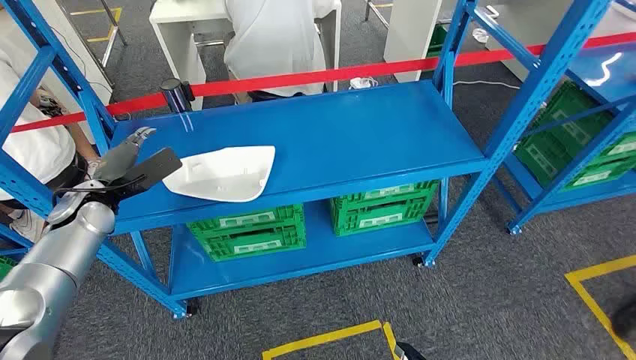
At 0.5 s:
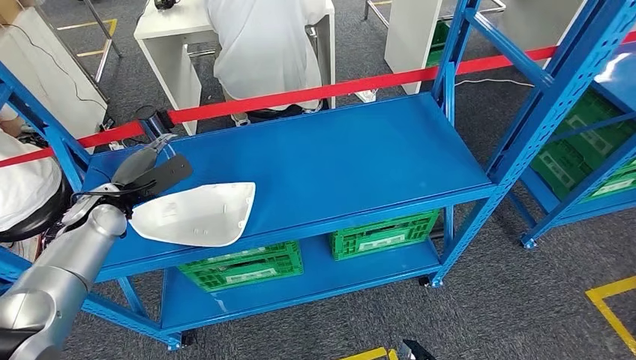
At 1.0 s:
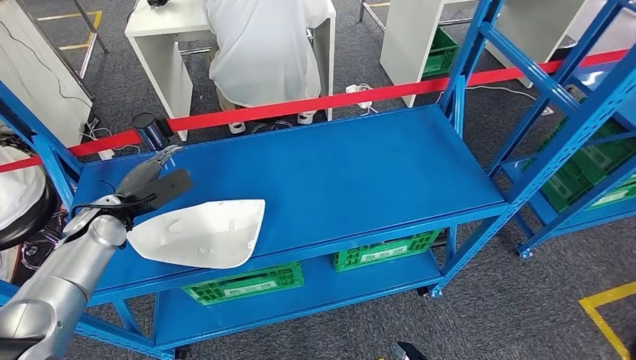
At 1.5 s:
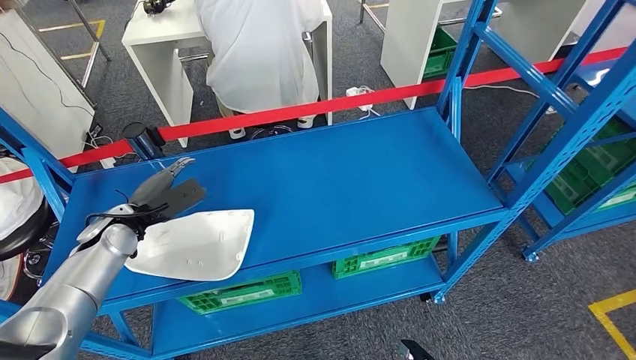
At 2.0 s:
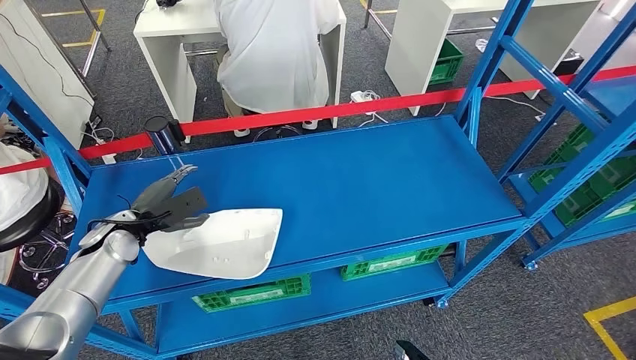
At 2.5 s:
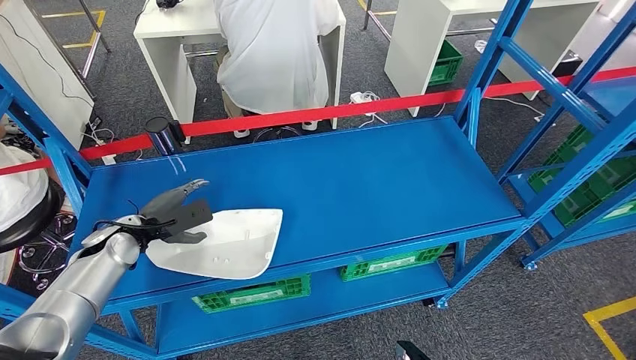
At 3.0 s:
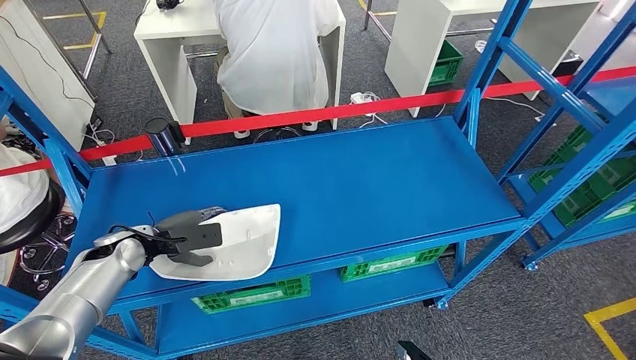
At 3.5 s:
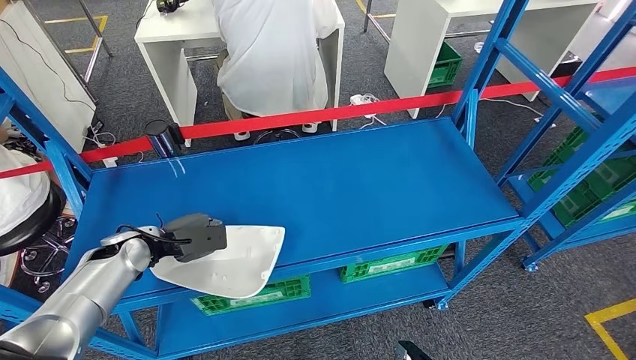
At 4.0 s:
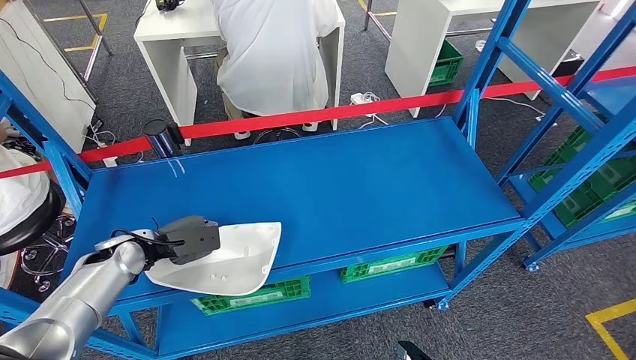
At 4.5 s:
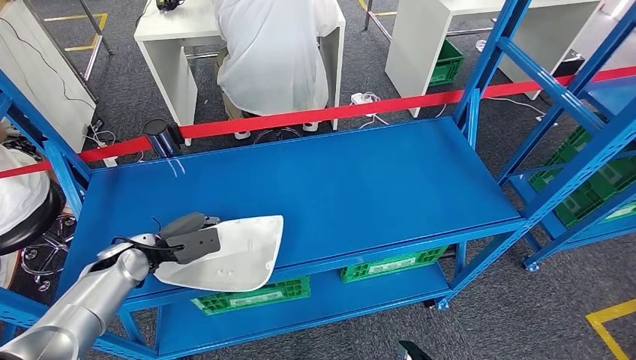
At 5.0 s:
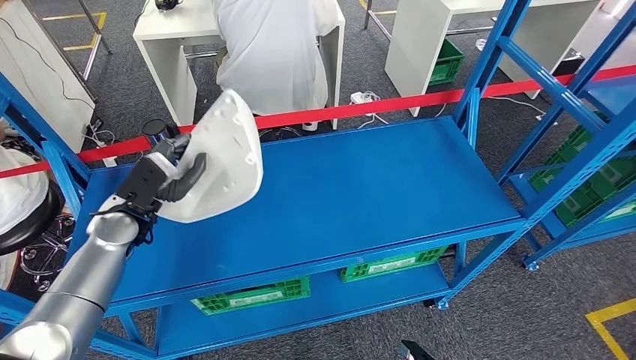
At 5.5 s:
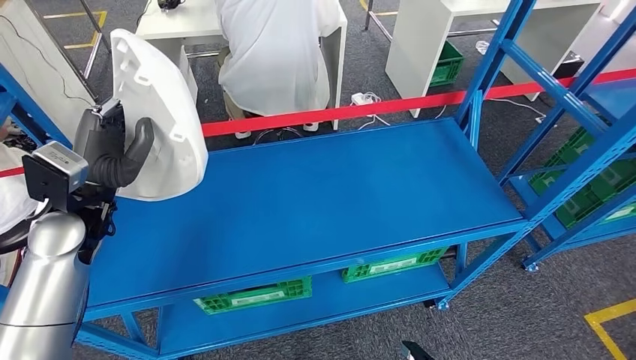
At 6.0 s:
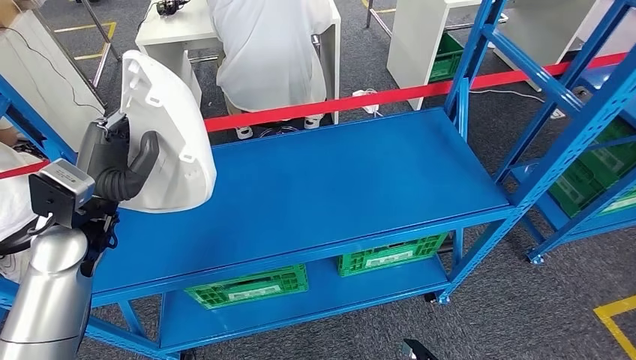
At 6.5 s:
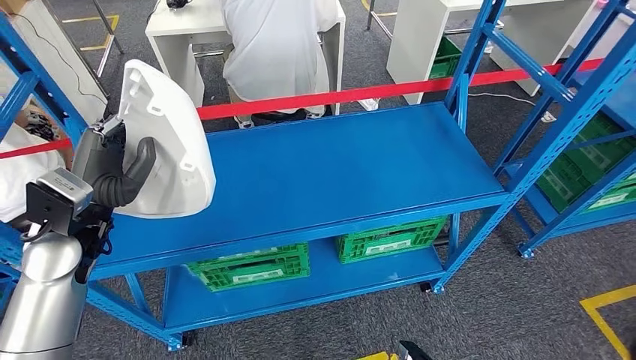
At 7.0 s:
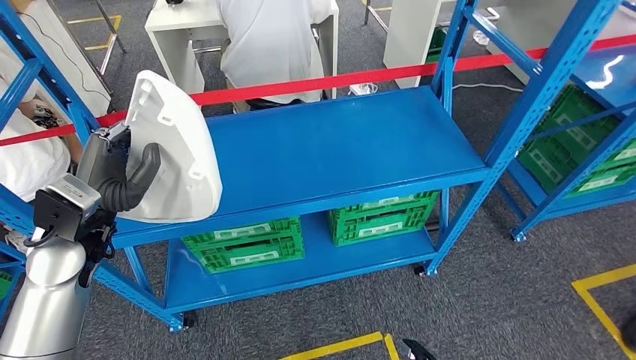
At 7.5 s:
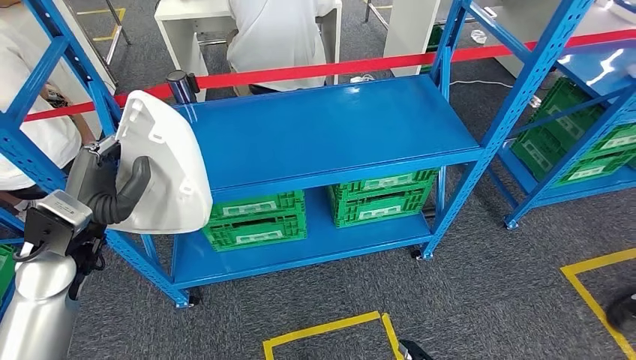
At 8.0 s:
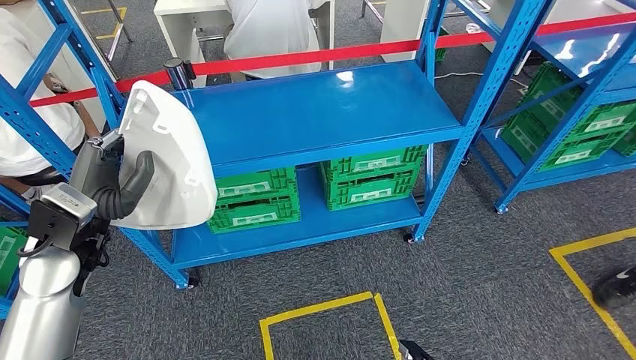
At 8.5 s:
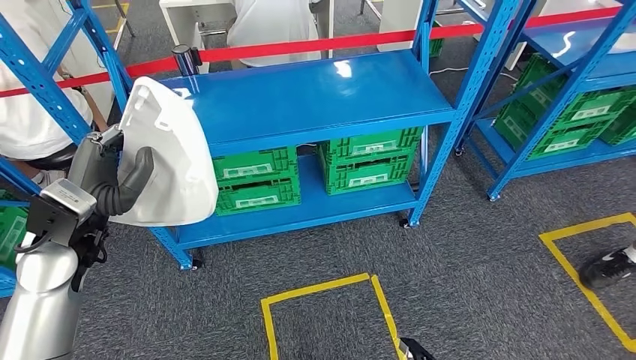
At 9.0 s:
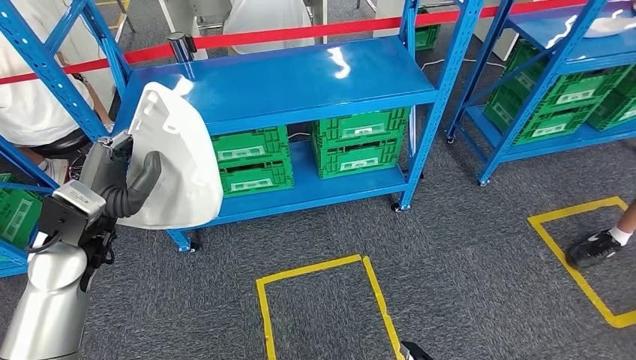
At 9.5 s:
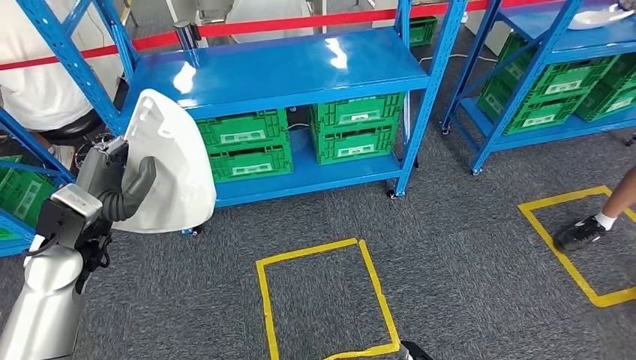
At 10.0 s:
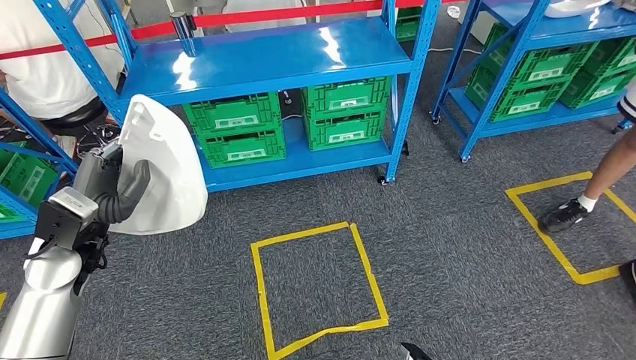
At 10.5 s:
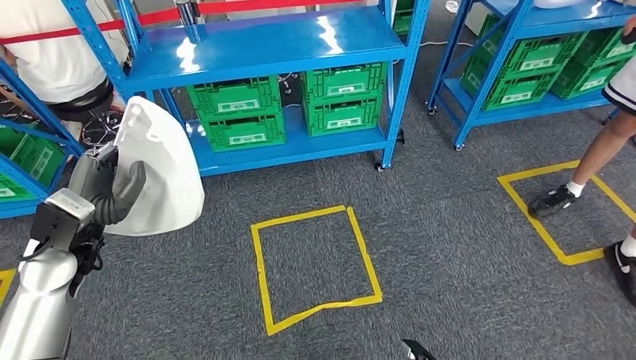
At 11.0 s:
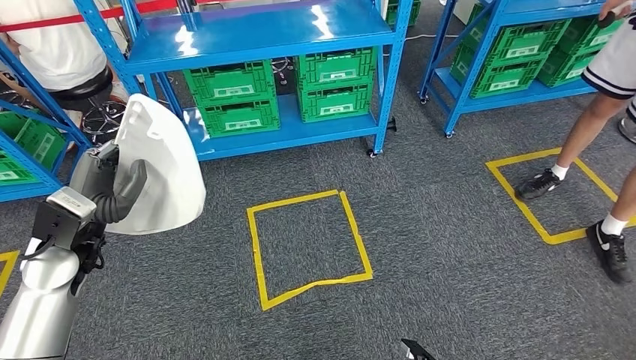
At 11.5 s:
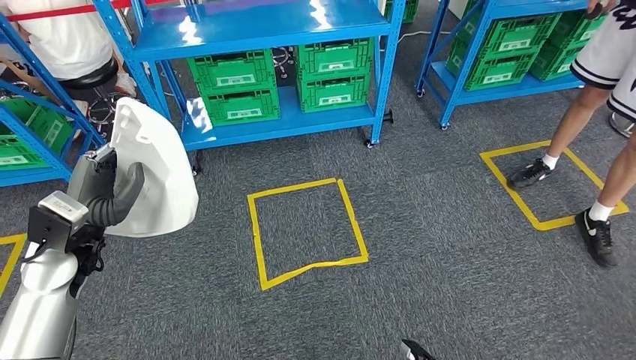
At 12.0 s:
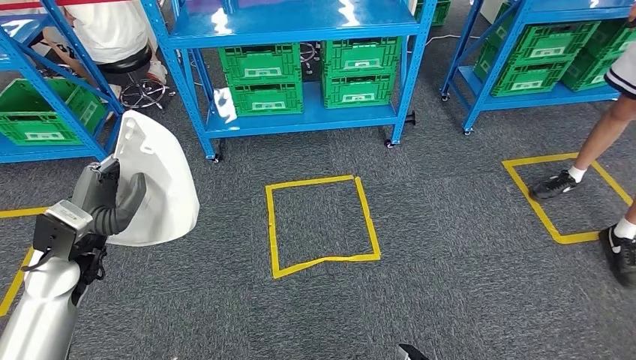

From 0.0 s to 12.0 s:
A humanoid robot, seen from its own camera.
Step, from 0.0 s to 7.0 s: Take small components from the rack.

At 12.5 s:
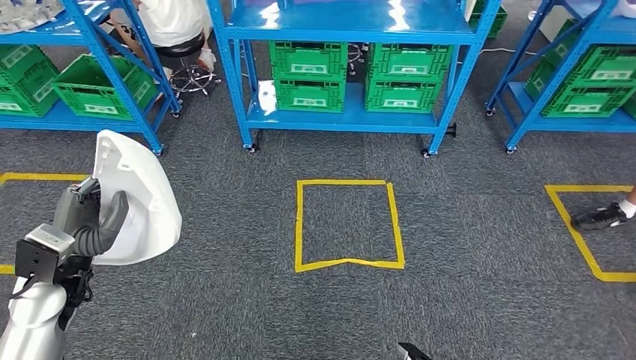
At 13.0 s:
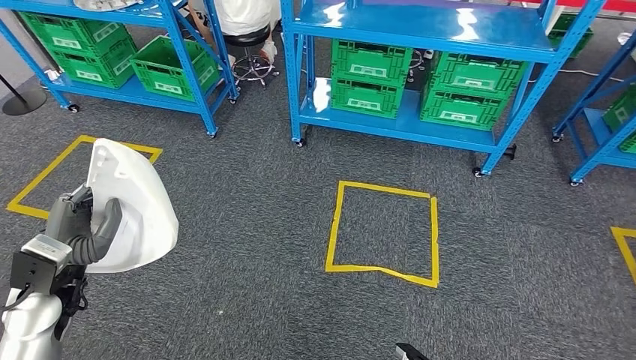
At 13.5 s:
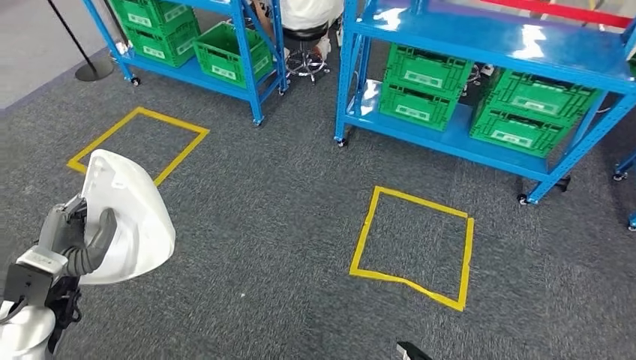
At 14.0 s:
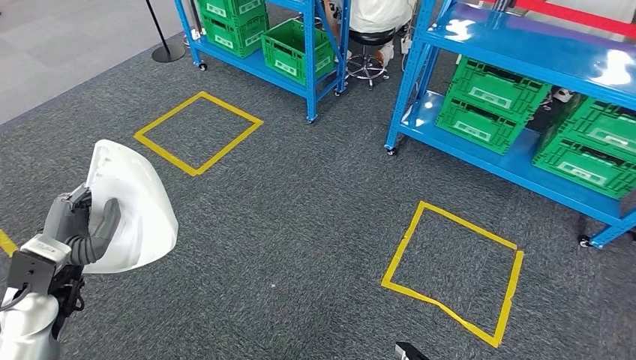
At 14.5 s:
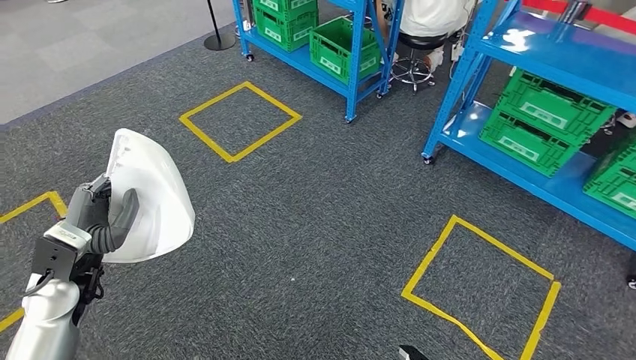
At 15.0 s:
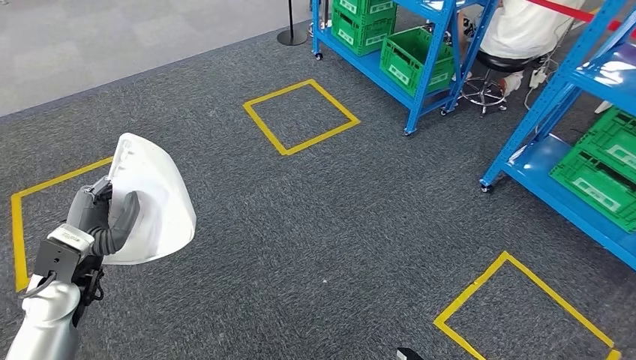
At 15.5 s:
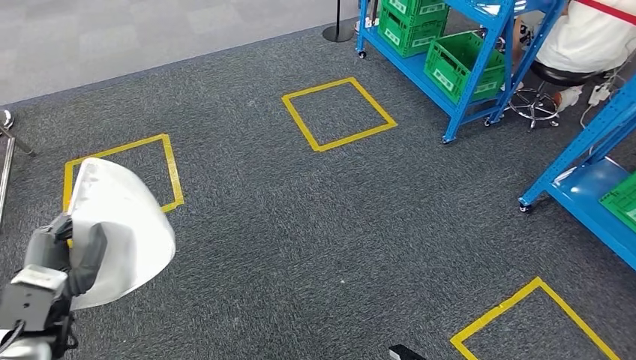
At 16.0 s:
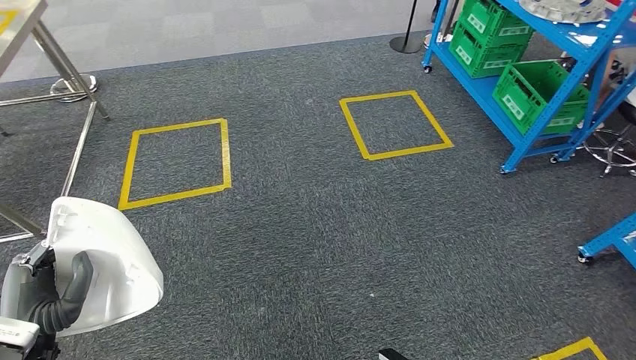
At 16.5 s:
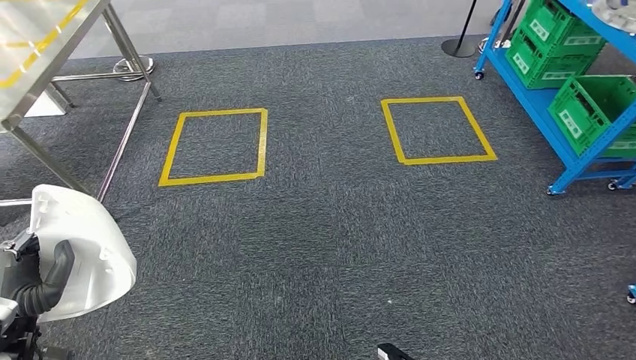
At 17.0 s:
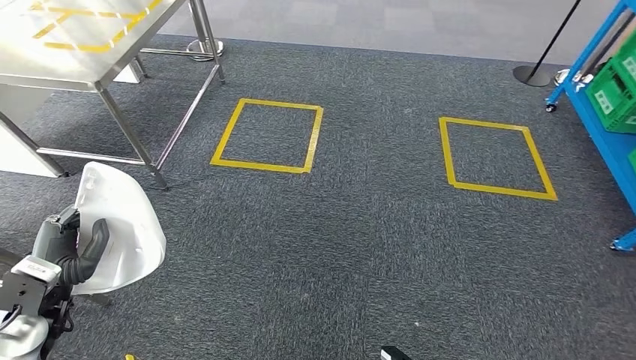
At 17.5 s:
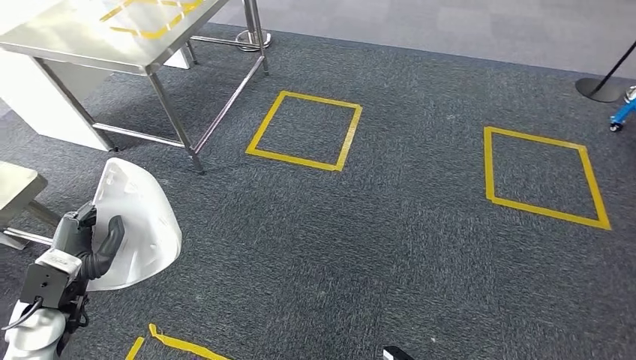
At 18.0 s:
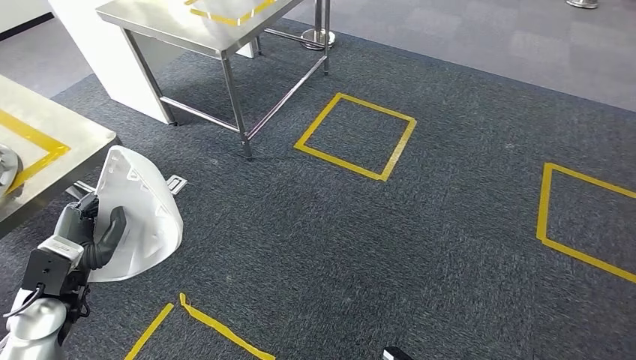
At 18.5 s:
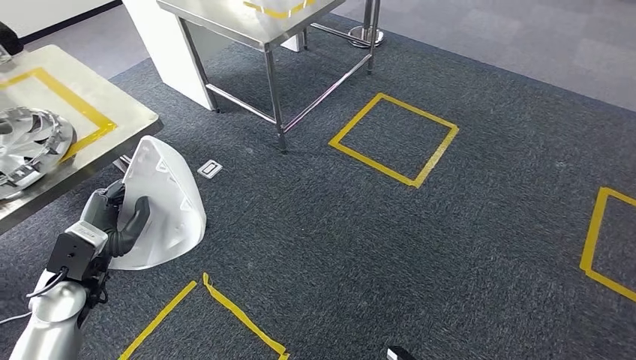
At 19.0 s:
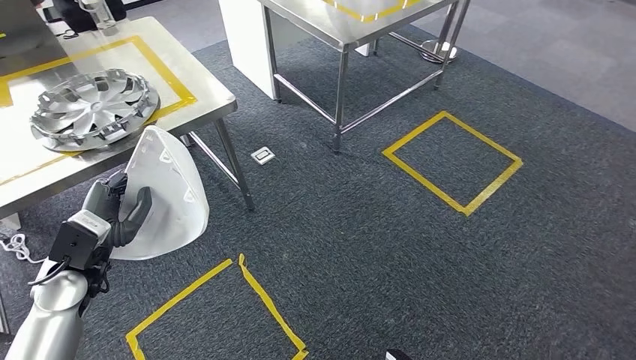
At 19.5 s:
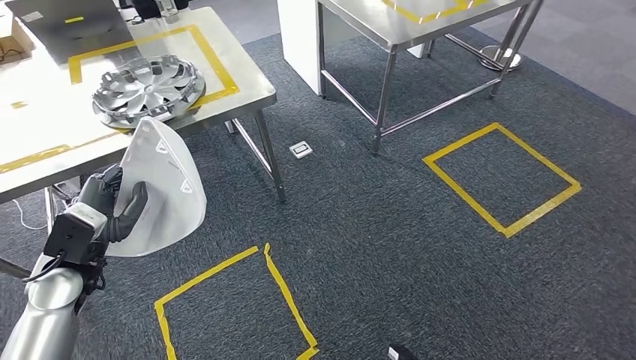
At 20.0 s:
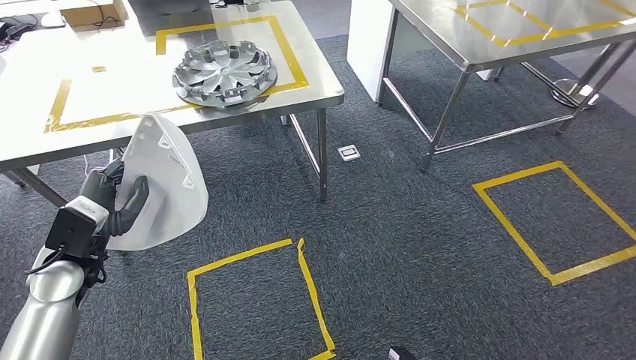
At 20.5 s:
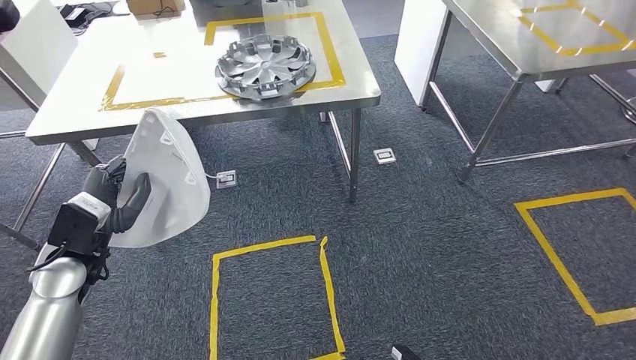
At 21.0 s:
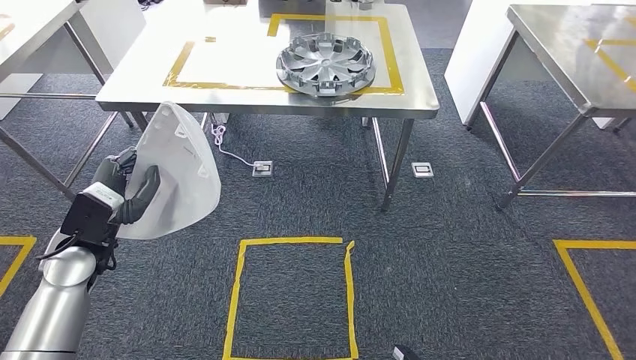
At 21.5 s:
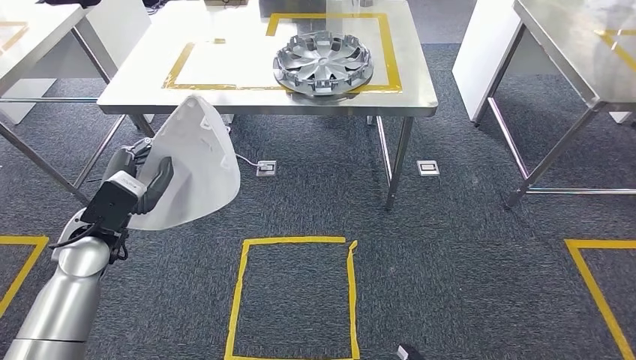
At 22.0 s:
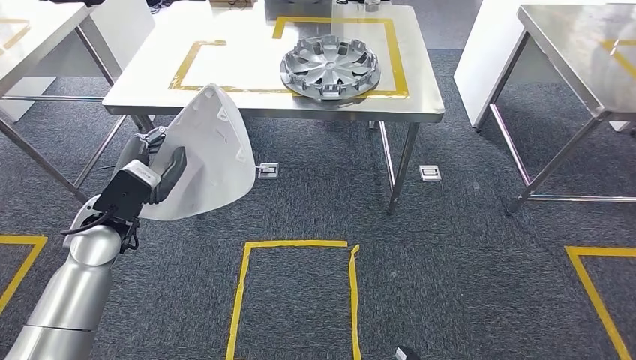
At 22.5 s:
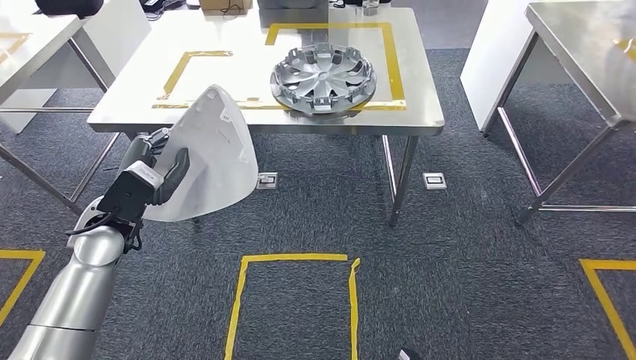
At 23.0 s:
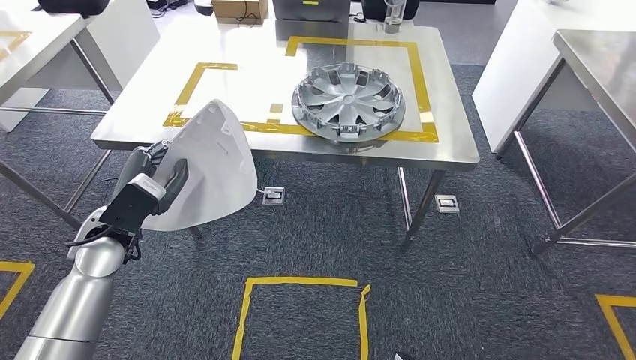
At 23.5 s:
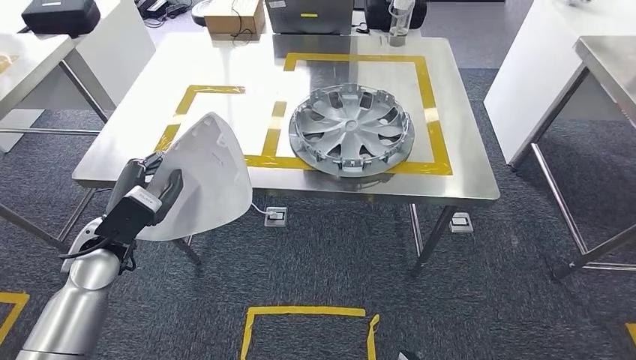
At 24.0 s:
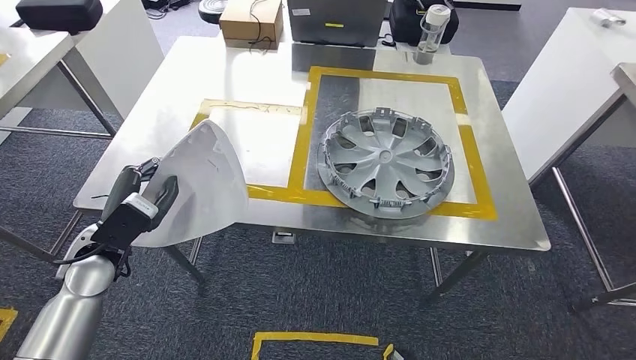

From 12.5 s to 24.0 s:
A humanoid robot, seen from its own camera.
Step, from 12.5 s to 21.5 s: Move the small parts to the workbench.
